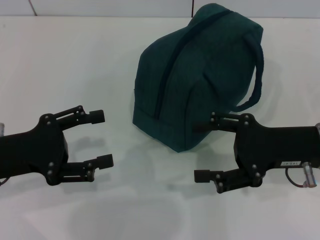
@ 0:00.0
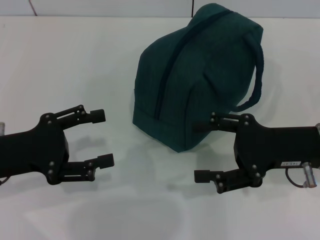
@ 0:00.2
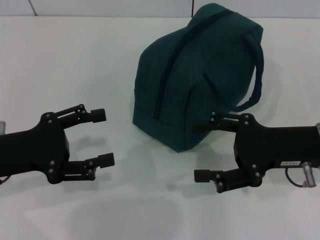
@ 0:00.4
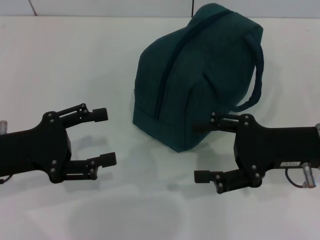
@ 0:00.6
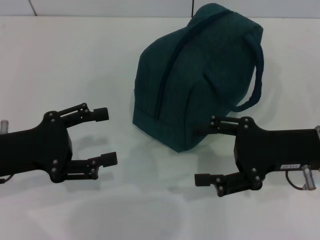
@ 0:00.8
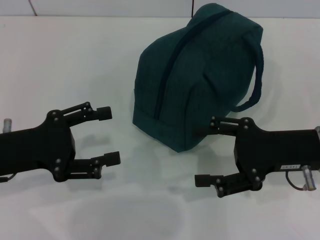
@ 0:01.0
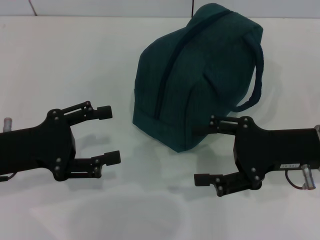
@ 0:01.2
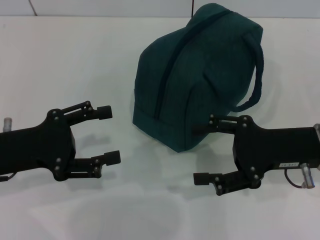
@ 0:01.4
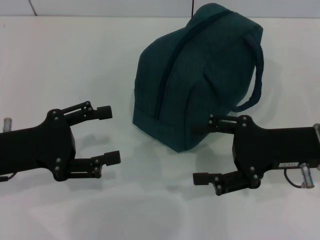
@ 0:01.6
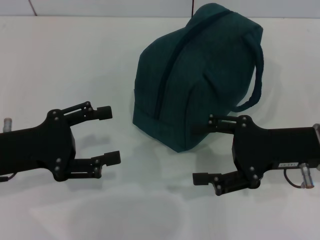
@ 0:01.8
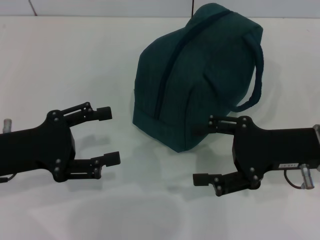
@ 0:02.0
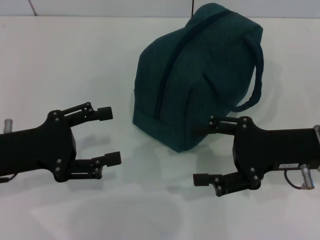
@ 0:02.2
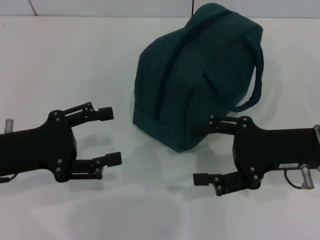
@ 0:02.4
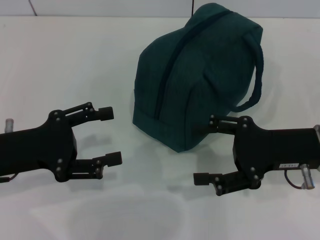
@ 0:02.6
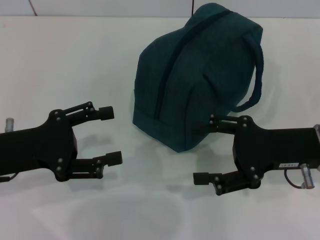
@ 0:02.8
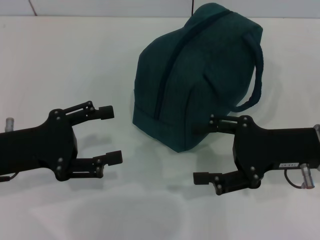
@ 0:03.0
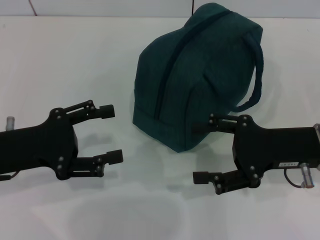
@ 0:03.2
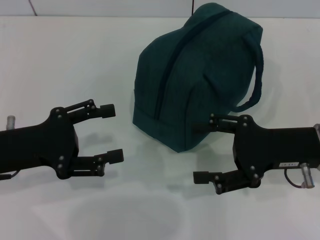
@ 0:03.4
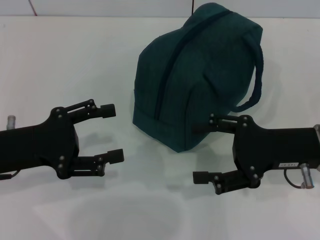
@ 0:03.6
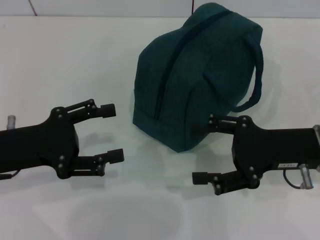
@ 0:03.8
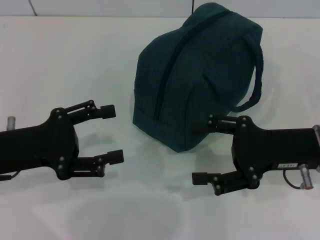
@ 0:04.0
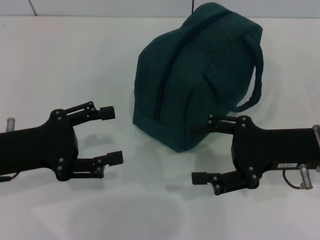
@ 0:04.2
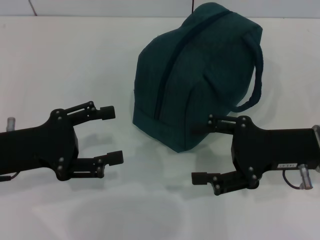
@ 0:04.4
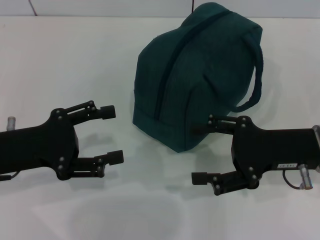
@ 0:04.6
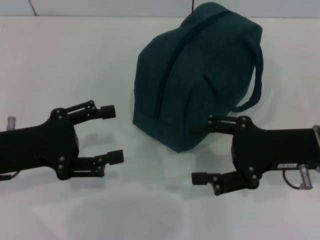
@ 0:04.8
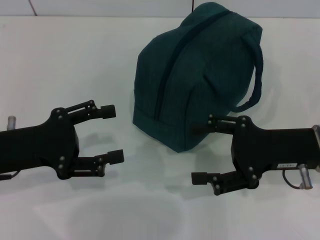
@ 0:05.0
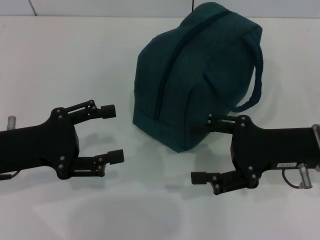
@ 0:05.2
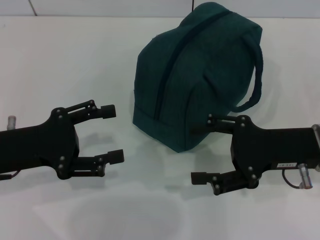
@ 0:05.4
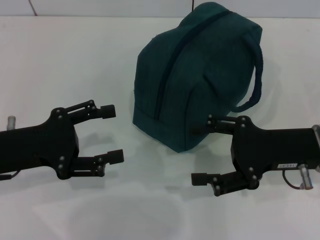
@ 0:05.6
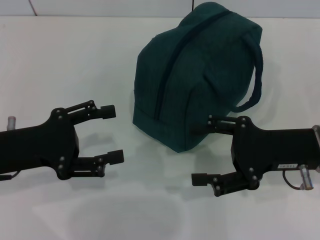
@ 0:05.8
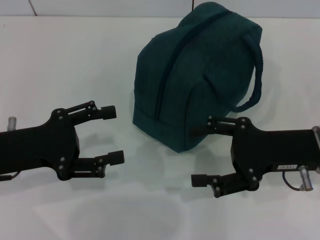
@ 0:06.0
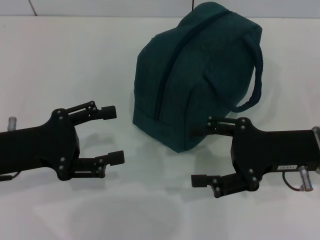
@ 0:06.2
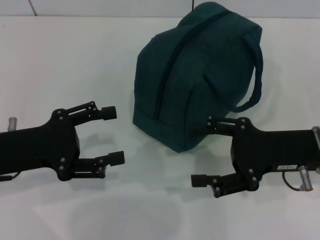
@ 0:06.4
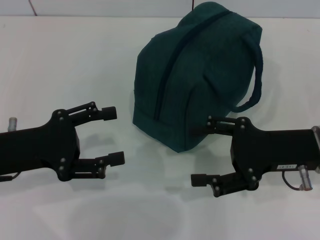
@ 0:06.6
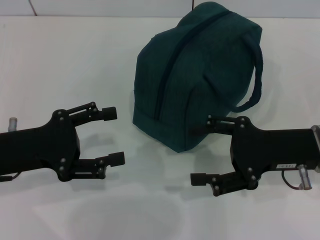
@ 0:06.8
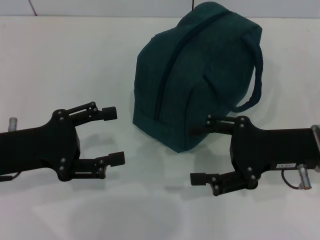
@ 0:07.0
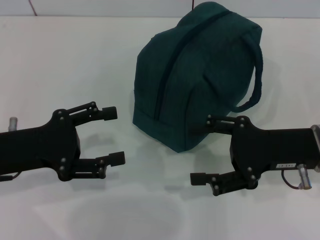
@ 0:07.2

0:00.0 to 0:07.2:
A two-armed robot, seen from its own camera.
0:00.0 to 0:02.8: Both grippers stay put.
0:02.8 to 0:07.2: Both grippers stay put.
